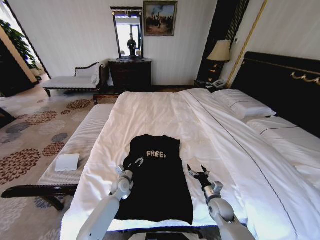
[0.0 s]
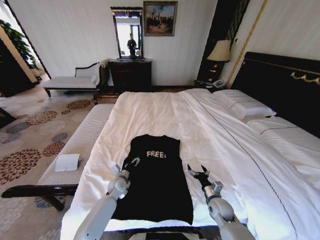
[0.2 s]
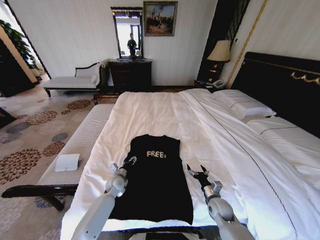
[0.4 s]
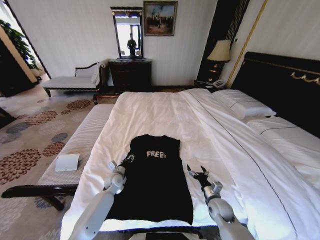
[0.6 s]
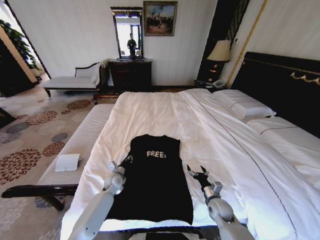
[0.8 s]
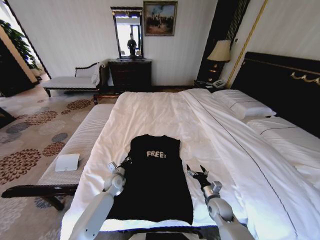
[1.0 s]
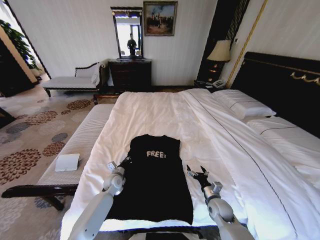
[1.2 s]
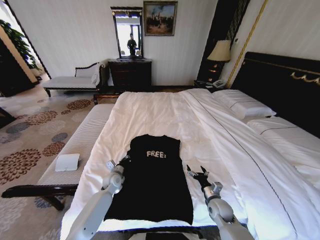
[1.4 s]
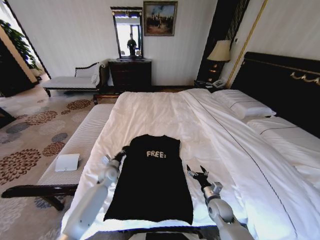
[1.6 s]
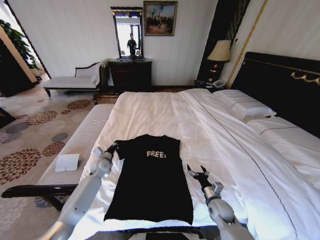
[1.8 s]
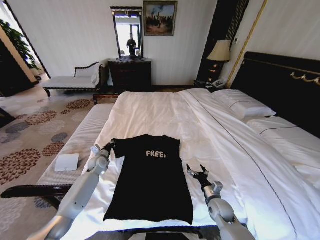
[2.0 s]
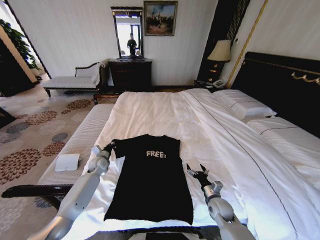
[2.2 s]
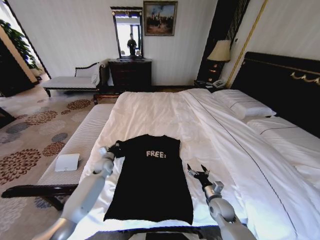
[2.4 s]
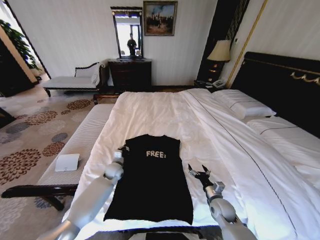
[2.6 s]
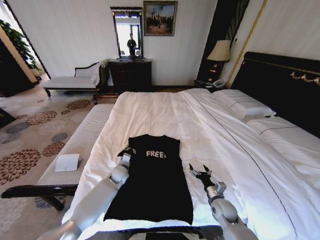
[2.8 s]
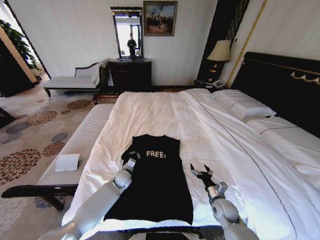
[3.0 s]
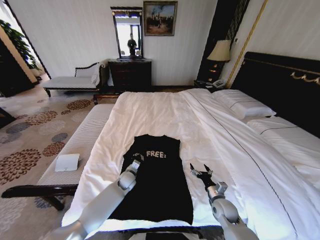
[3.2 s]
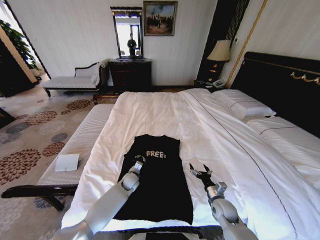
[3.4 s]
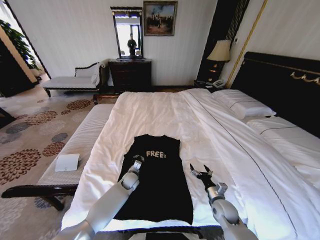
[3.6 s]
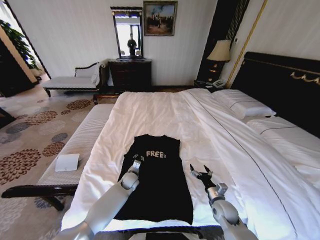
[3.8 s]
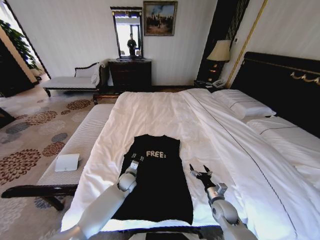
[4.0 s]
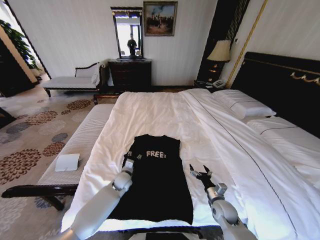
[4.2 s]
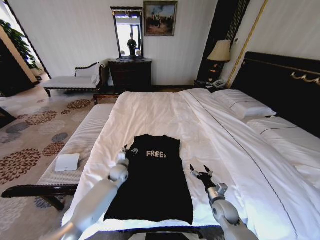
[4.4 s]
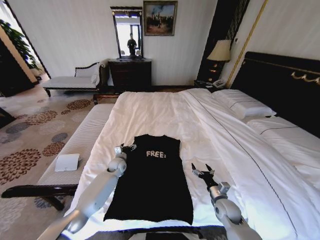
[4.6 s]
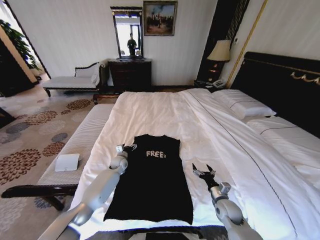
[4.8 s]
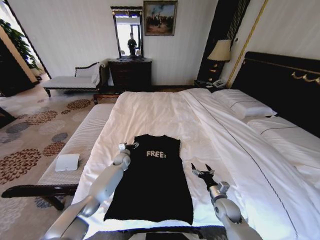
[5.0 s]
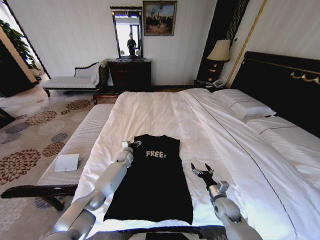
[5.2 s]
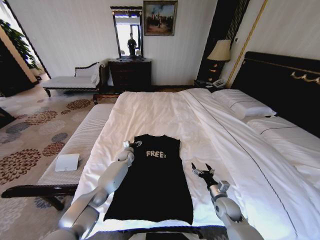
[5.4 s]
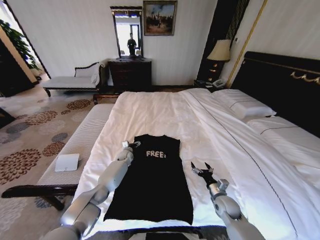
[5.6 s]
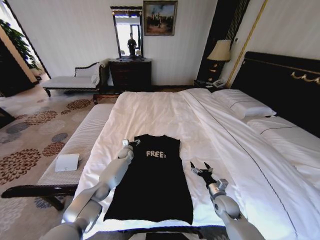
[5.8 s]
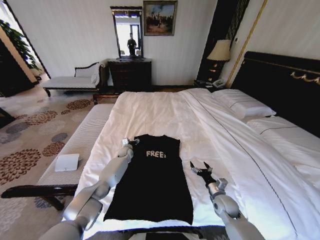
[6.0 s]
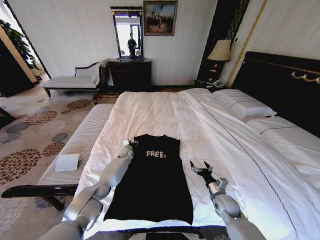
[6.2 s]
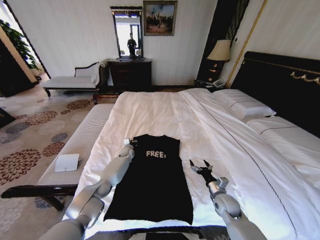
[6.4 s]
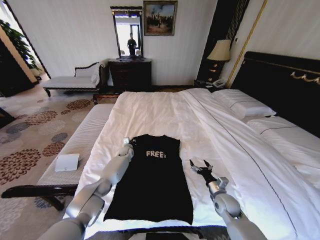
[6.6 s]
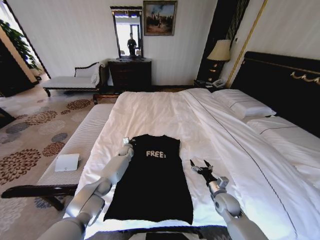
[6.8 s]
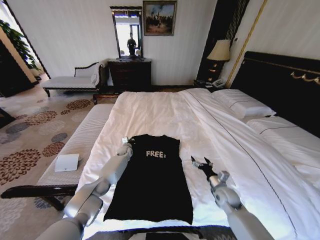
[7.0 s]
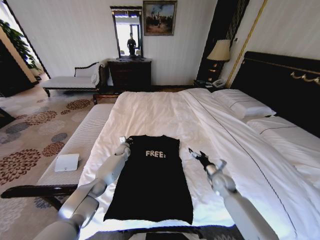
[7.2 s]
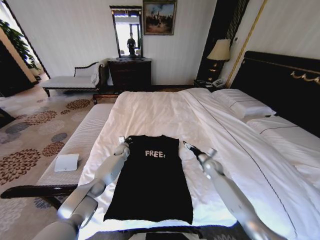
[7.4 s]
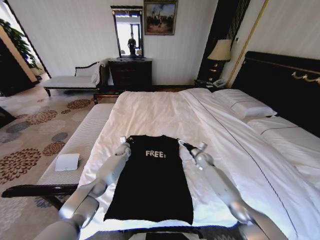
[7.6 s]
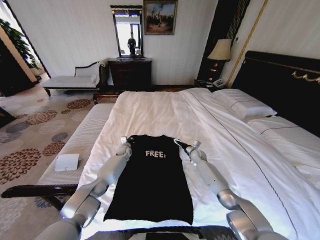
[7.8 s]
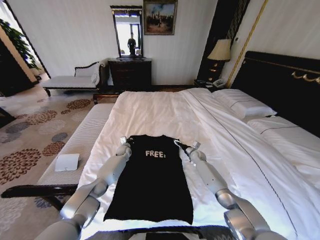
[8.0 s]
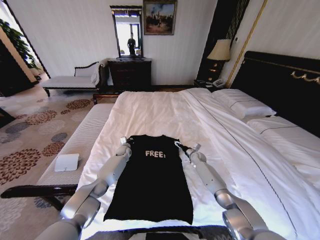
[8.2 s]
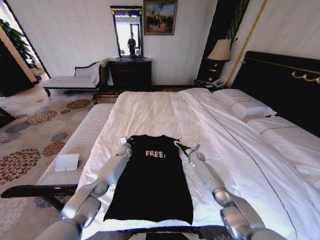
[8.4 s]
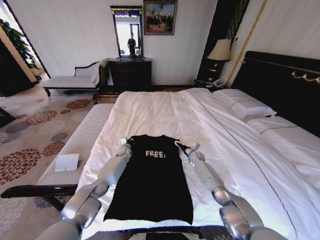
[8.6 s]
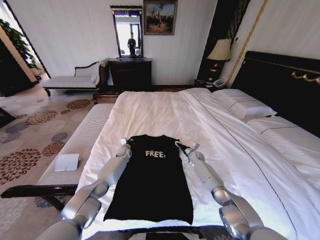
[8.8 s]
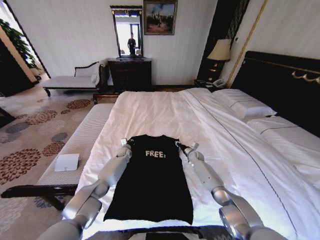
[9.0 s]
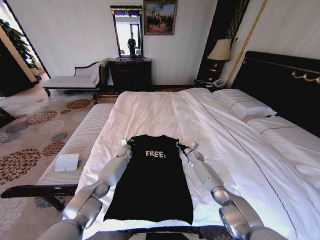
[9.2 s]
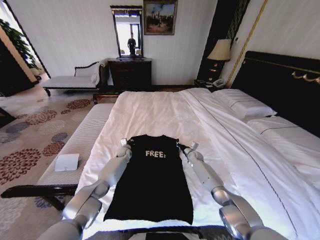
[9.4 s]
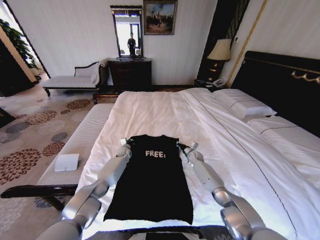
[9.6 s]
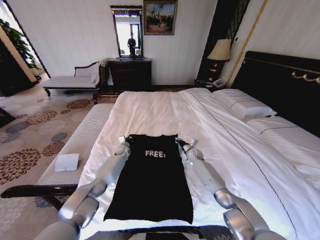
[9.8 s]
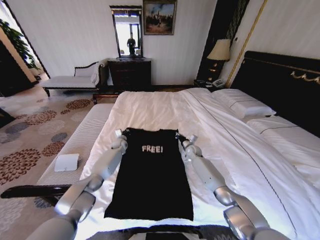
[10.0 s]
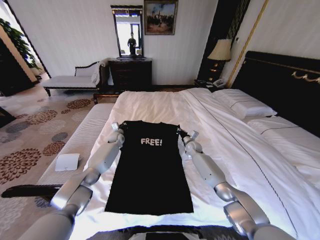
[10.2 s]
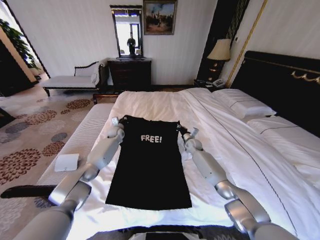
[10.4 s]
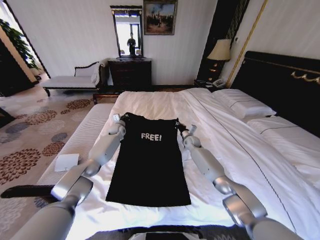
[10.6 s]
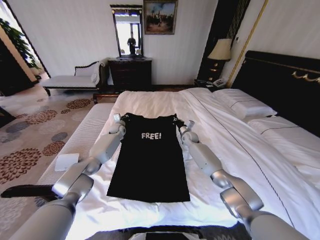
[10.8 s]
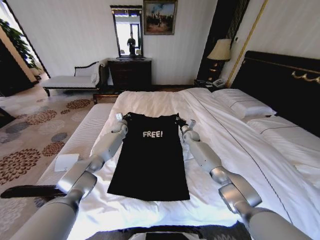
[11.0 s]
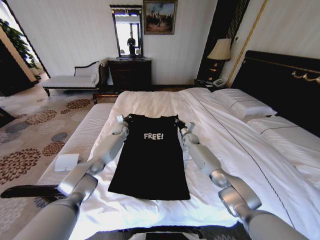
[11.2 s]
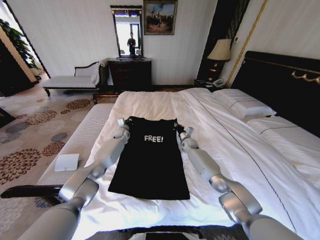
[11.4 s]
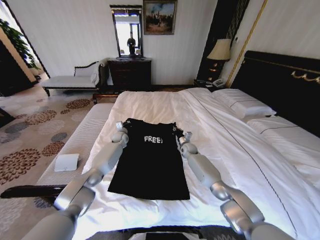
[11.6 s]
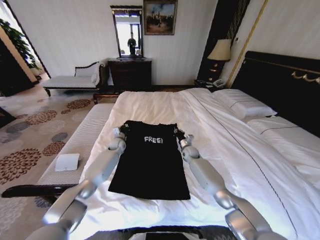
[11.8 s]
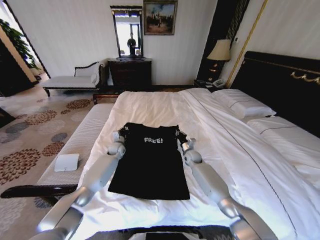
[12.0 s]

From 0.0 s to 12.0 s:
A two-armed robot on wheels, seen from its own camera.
Task of the whole recording: Fold the clothes on the bed.
From 0.0 s to 1.6 s: The left gripper travels to the left by approximately 5 cm, and closes its fingers.
From 1.6 s to 3.0 s: The left gripper goes about 10 cm to the right.
From 3.0 s to 4.4 s: The left gripper opens.
From 4.4 s to 6.0 s: The left gripper heads forward, covering about 15 cm.
From 6.0 s to 7.6 s: The left gripper closes. Meanwhile the right gripper travels forward by some 25 cm.
From 7.6 s to 9.0 s: The right gripper changes place by approximately 5 cm, and closes up.
From 9.0 s to 10.4 s: The right gripper moves upward, approximately 10 cm. Meanwhile the left gripper moves upward and forward, roughly 15 cm.
From 10.4 s to 12.0 s: The left gripper is displaced backward and downward by approximately 10 cm, while the right gripper moves backward, about 5 cm.

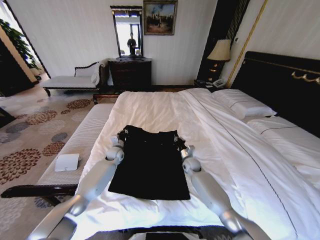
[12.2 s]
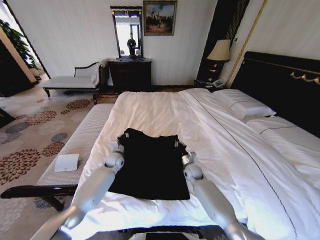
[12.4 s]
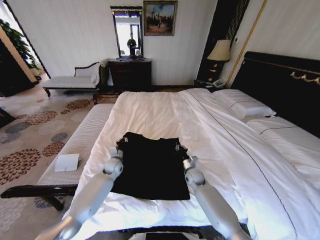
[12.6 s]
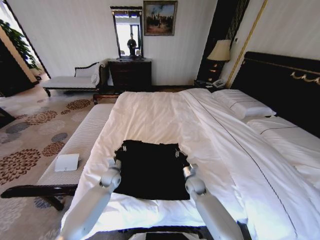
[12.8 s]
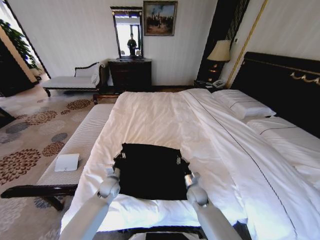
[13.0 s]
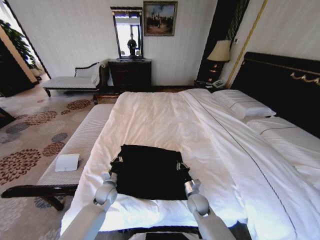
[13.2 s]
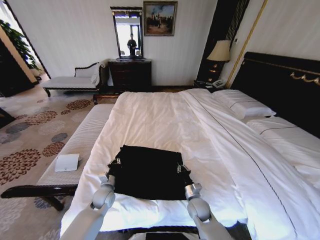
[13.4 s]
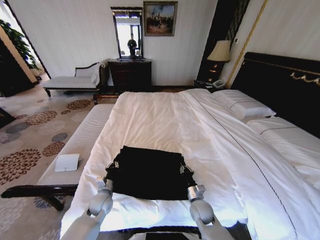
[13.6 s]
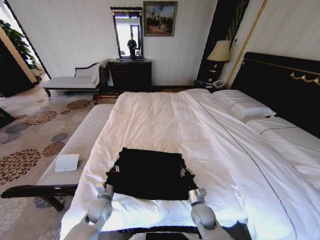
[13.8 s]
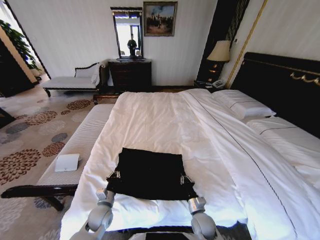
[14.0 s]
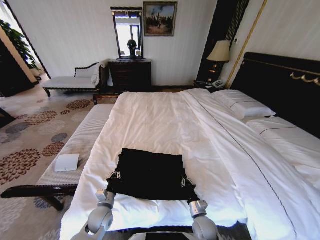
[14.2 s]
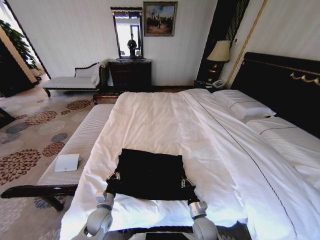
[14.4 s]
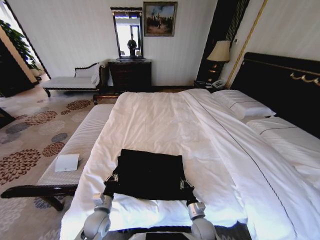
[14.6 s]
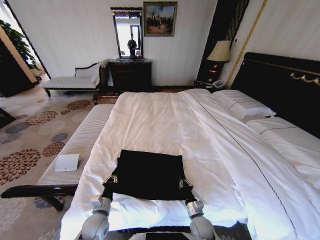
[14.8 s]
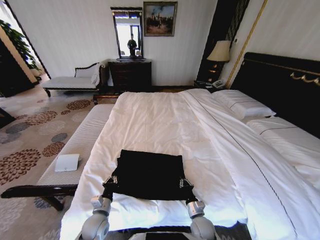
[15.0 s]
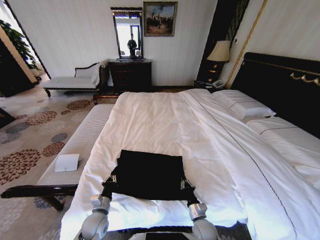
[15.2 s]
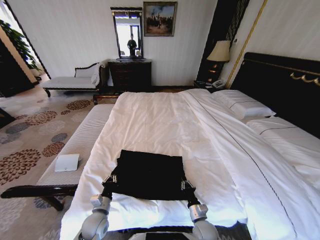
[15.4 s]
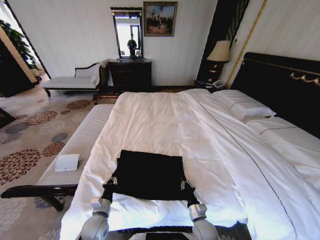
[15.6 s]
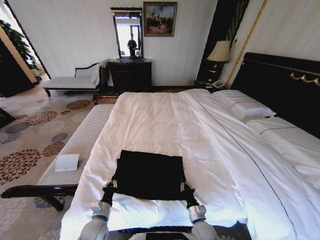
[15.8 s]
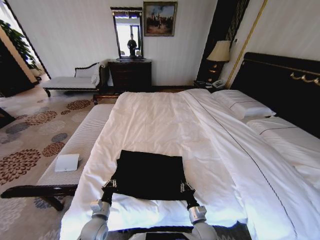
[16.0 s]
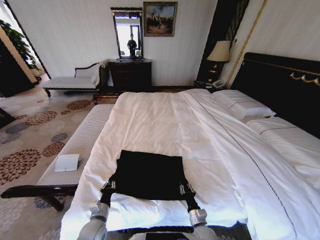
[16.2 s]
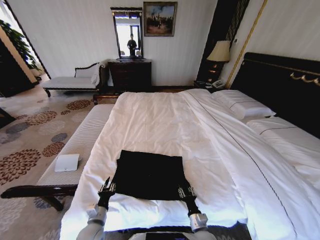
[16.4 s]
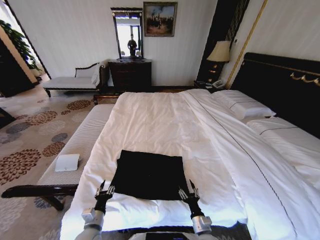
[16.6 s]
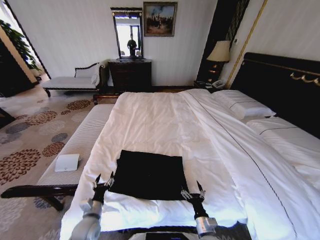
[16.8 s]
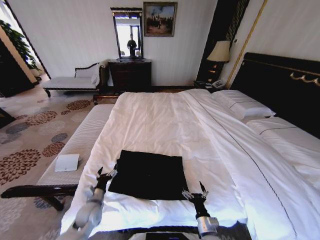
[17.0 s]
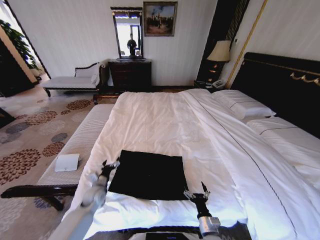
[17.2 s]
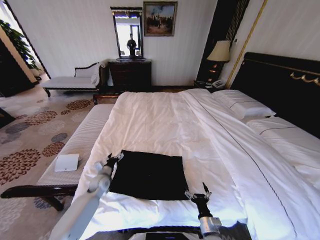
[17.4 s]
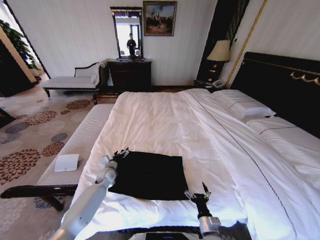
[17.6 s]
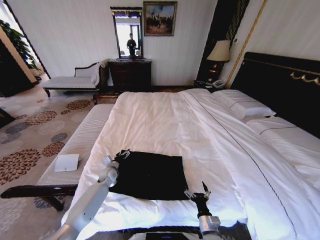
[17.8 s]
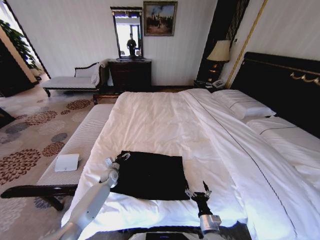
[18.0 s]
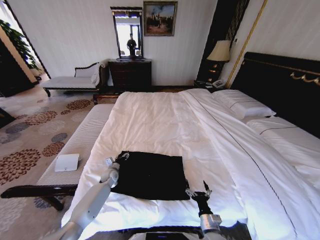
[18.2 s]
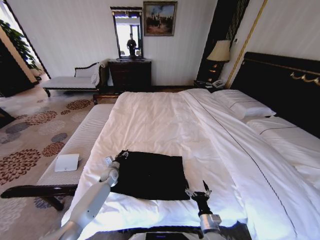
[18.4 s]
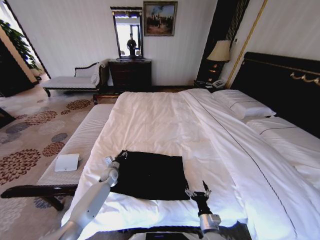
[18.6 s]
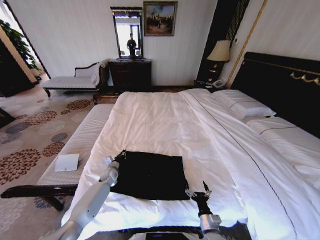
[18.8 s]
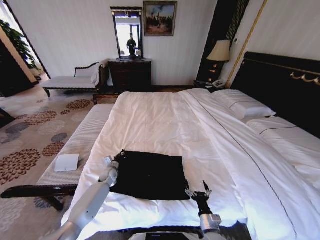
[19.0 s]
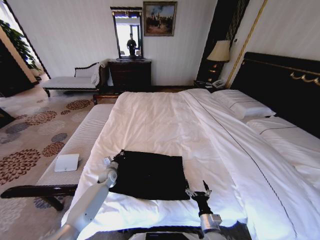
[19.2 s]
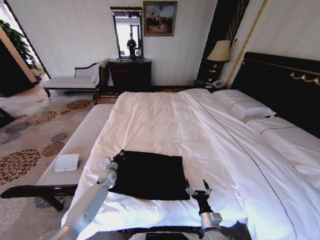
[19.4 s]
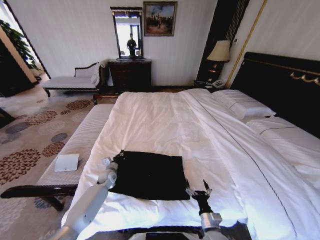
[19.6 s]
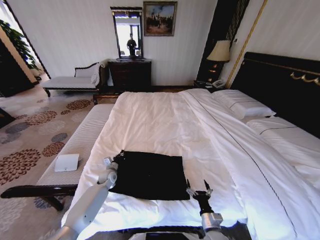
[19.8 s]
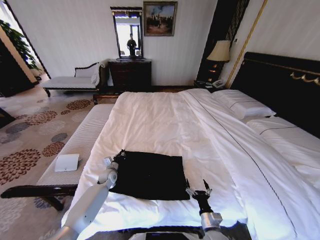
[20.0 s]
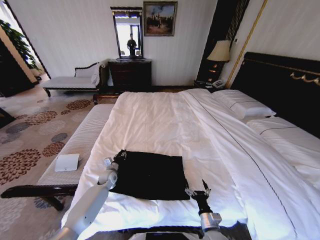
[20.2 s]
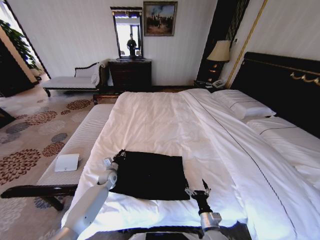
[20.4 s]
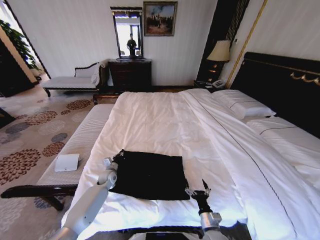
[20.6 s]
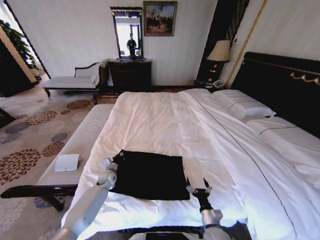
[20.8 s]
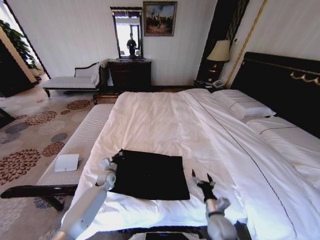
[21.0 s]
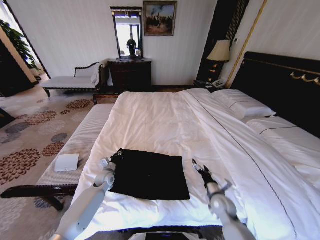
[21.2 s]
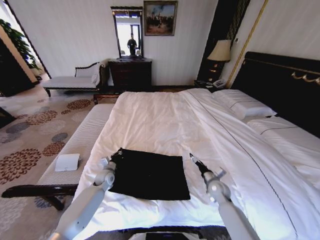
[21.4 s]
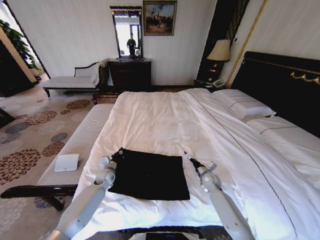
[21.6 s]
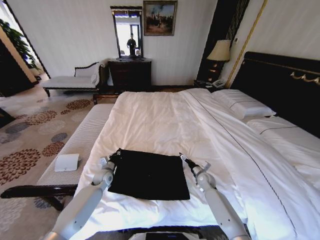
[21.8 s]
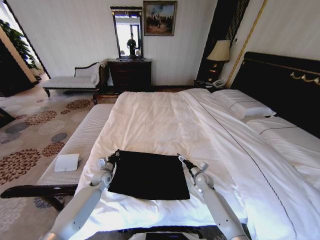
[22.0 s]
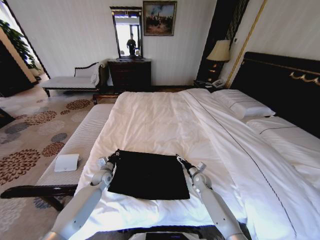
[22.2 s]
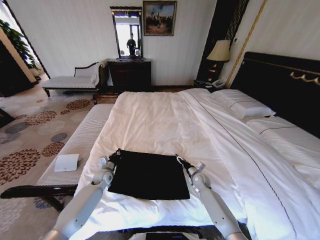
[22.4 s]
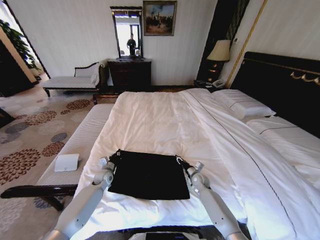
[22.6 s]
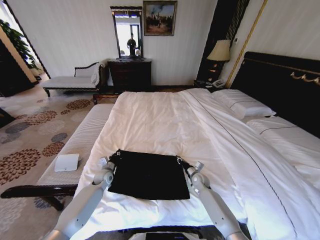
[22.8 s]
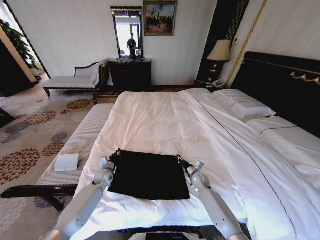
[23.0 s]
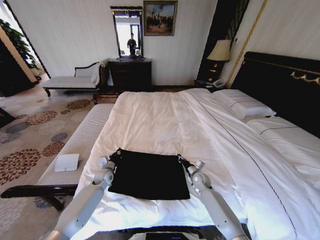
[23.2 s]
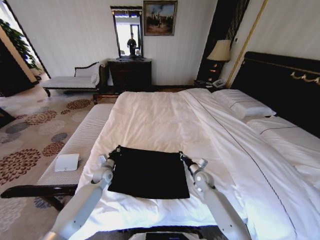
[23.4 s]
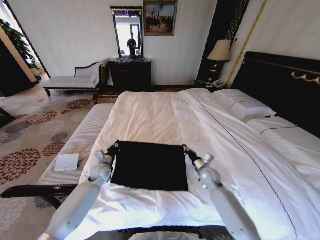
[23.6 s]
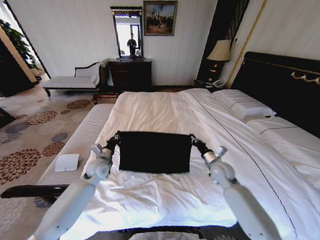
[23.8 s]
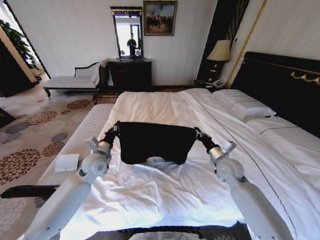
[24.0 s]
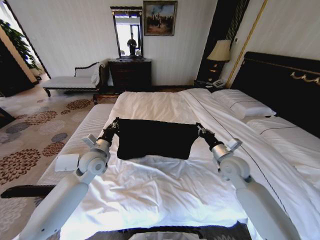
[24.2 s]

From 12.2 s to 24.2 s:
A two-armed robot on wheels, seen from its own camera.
Task of the whole recording: Fold the clothes on the bed.
From 12.2 s to 13.8 s: Both grippers move backward, some 25 cm.
From 13.8 s to 15.2 s: The right gripper shifts by approximately 5 cm.
From 15.2 s to 16.6 s: The two grippers go some 5 cm backward. The left gripper opens; the right gripper opens.
From 16.6 s to 18.2 s: The right gripper opens. The left gripper is displaced forward by about 30 cm.
From 18.2 s to 19.8 s: The left gripper closes up.
From 19.8 s to 21.2 s: The left gripper opens, then closes once more. The right gripper heads forward, upward and to the right, covering approximately 15 cm.
From 21.2 s to 22.6 s: The right gripper moves forward and downward, about 15 cm, and closes up.
From 22.6 s to 24.2 s: The two grippers go approximately 25 cm upward. The right gripper closes up.
